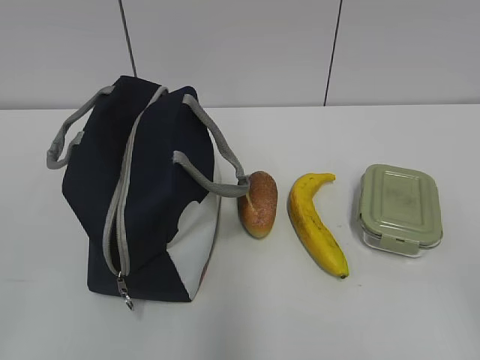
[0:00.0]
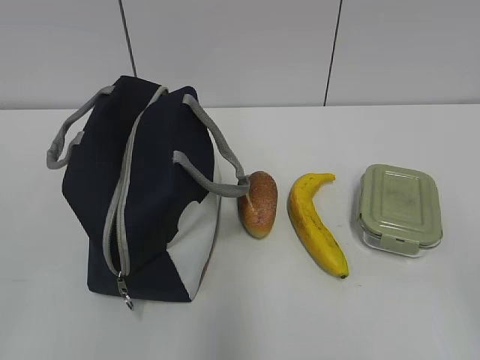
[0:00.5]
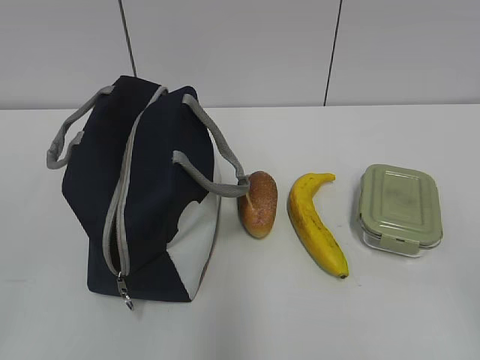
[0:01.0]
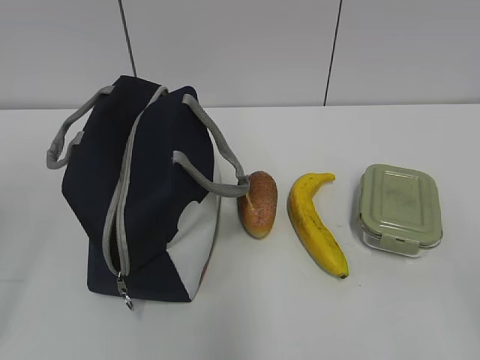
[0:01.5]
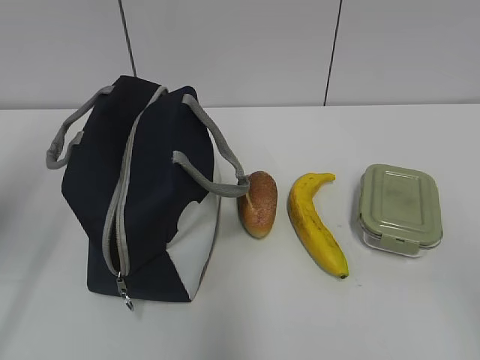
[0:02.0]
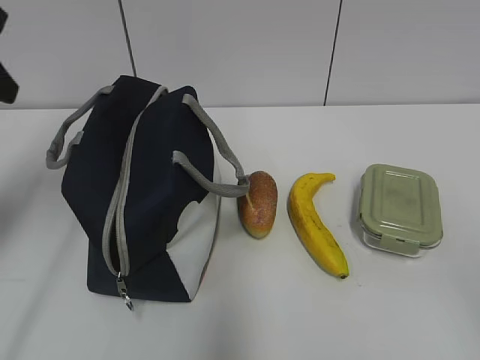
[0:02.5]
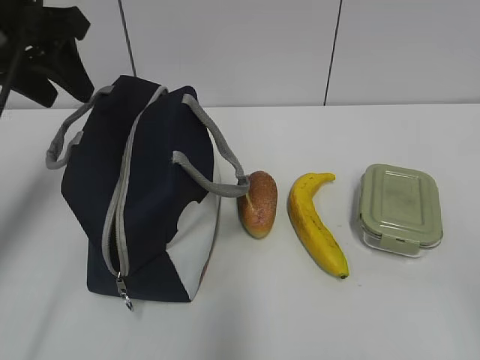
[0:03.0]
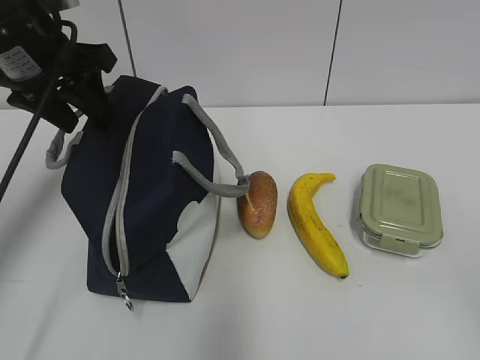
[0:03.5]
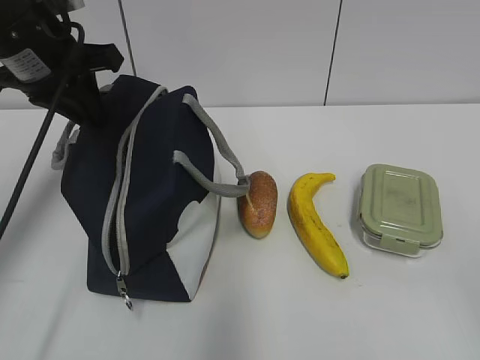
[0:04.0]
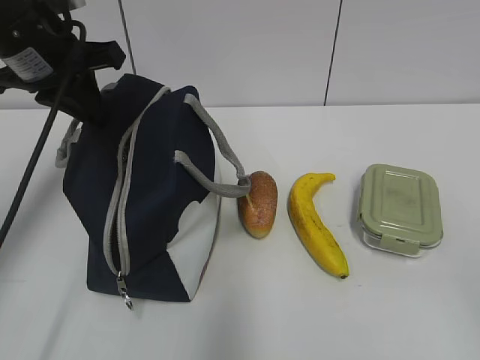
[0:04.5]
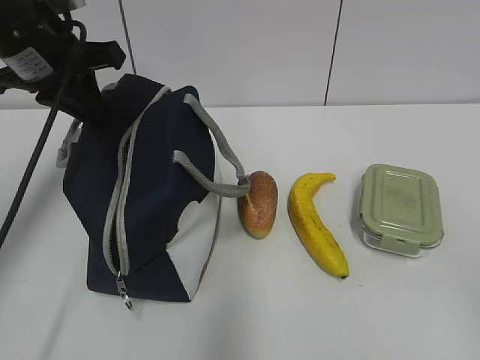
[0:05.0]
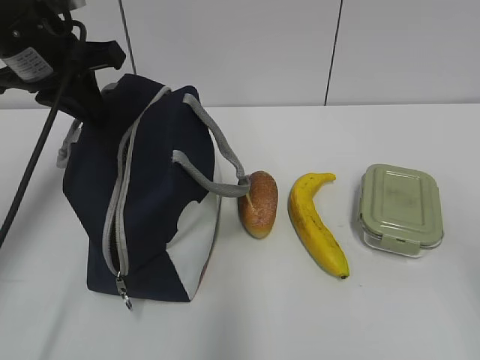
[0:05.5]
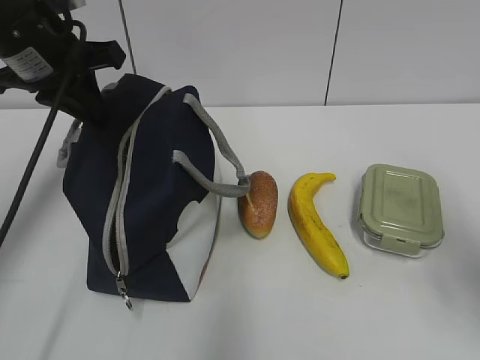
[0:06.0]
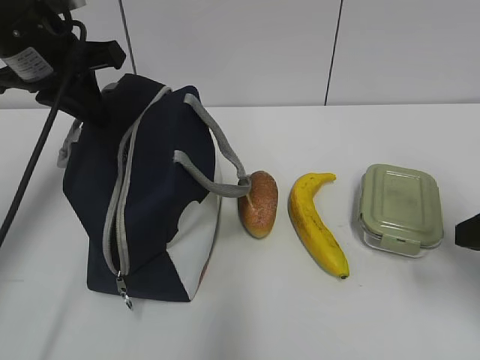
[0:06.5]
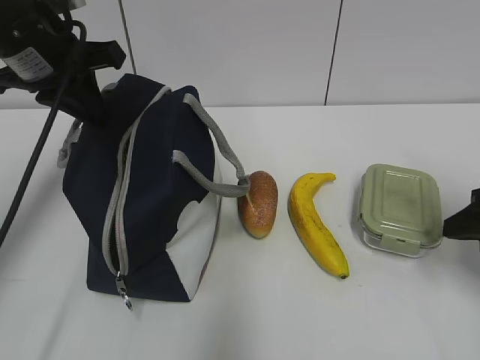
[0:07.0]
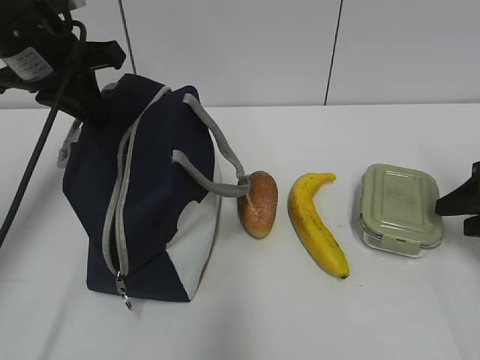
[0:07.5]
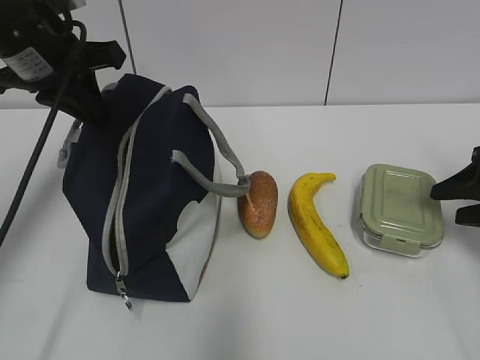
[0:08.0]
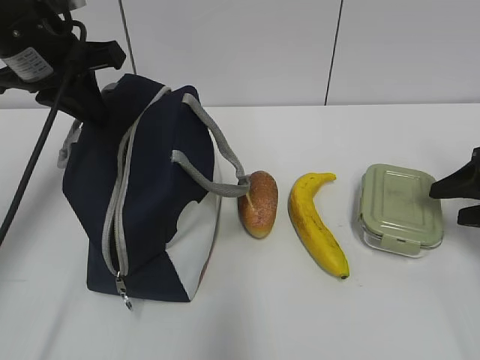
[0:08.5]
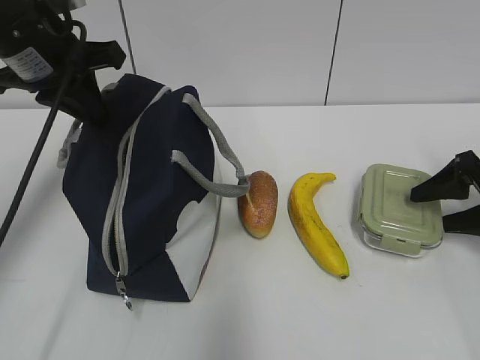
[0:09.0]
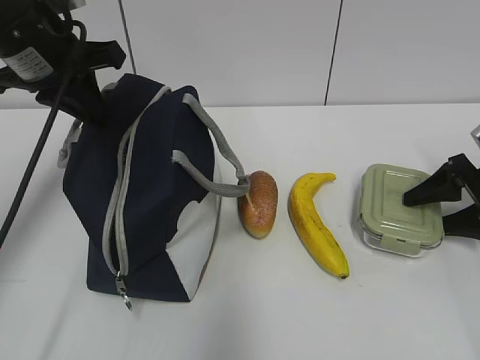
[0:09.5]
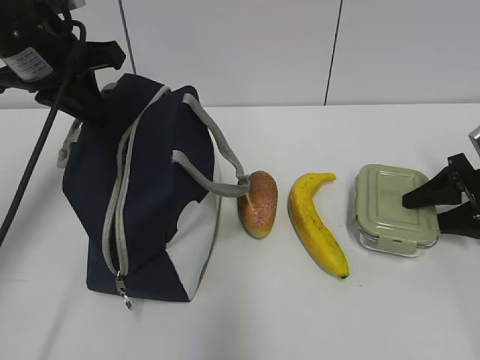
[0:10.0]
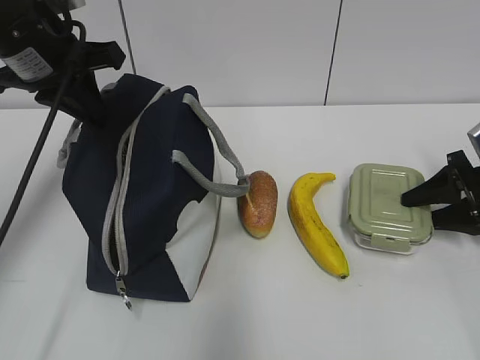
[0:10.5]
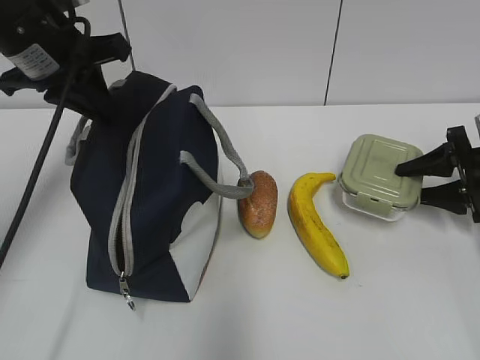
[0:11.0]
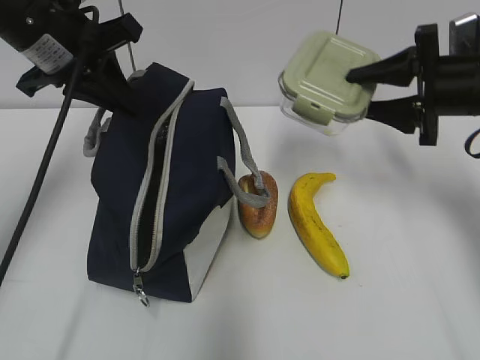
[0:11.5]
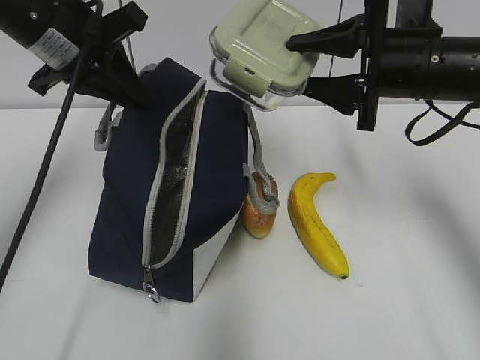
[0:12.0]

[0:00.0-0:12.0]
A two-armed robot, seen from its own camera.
Step, 0:00.0 to 0:04.5: Grab the lunch bag with your left hand.
Step, 0:05.0 to 0:10.0: Grab the lunch box with your right hand.
0:02.0 to 0:04.0: The left gripper is displaced forward and to the right by about 20 cm.
0:04.0 to 0:06.0: The right gripper goes about 15 cm forward.
0:06.0 to 0:08.0: The right gripper travels forward, downward and to the right by some 20 cm.
0:08.0 to 0:10.0: The right gripper shifts approximately 5 cm downward and forward.
0:10.0 to 0:12.0: The right gripper is displaced to the left and upward by about 20 cm.

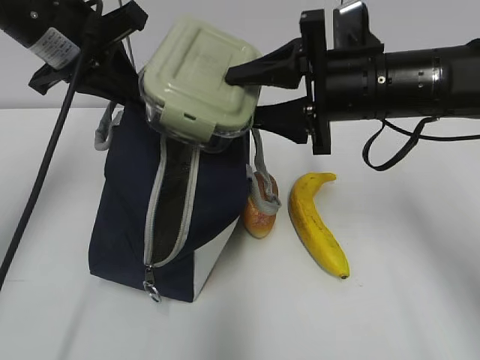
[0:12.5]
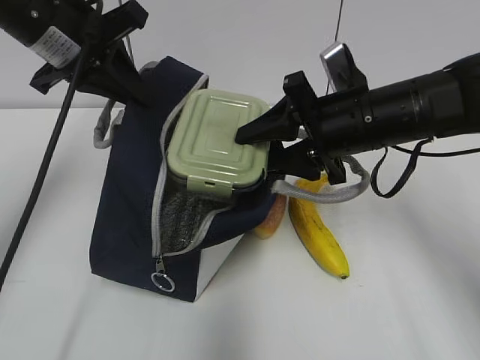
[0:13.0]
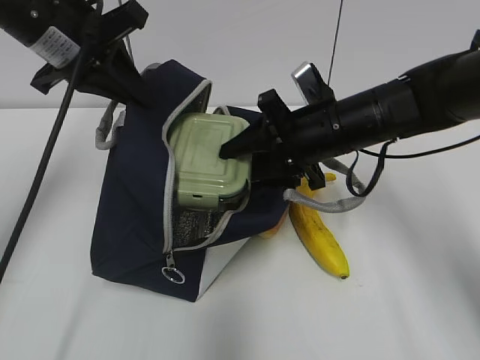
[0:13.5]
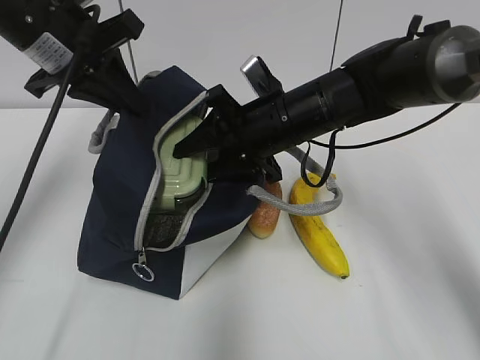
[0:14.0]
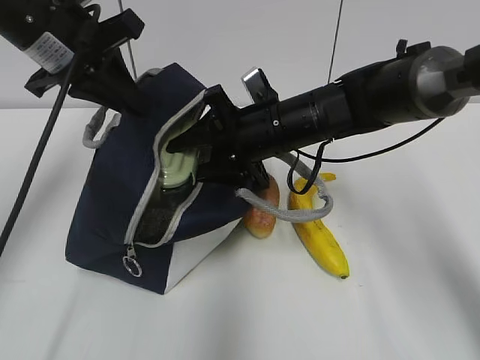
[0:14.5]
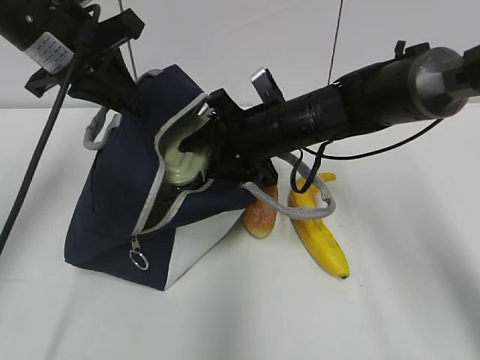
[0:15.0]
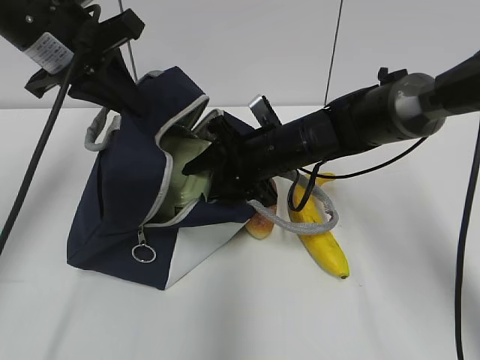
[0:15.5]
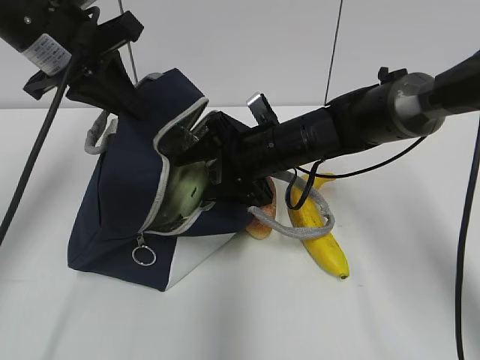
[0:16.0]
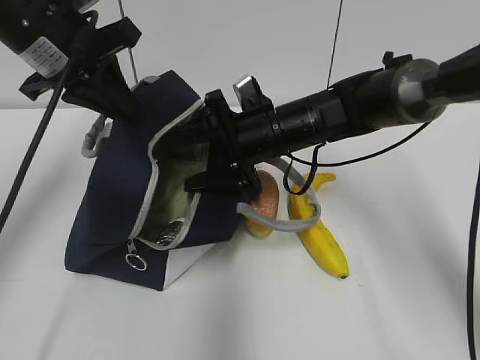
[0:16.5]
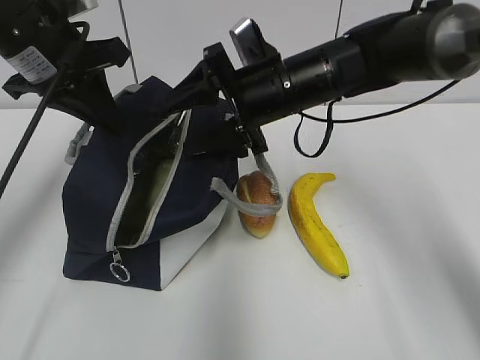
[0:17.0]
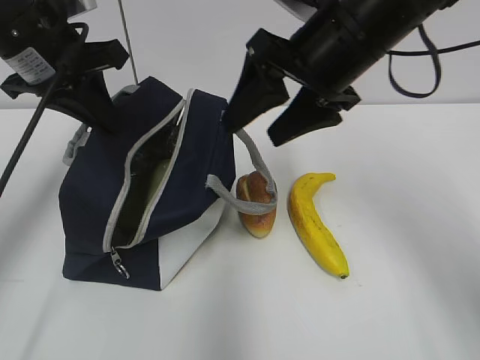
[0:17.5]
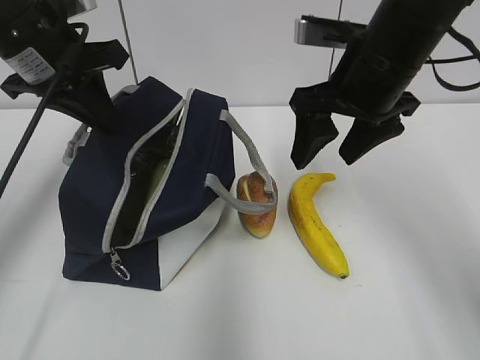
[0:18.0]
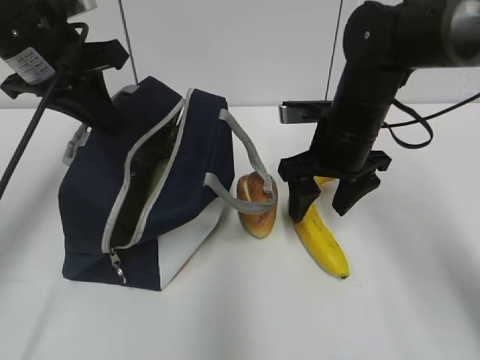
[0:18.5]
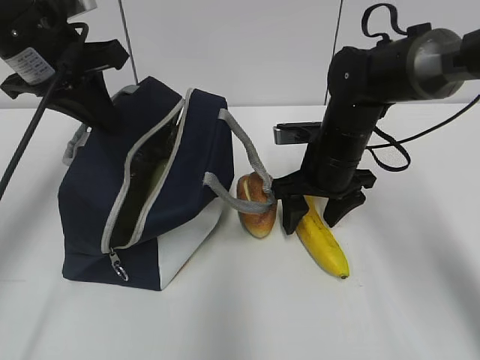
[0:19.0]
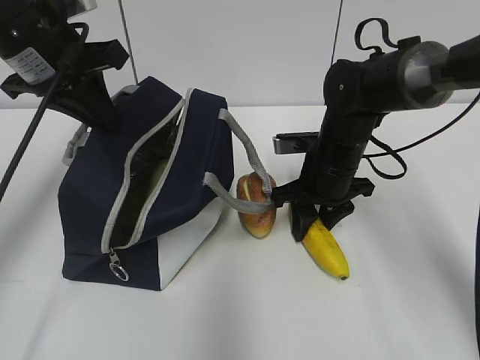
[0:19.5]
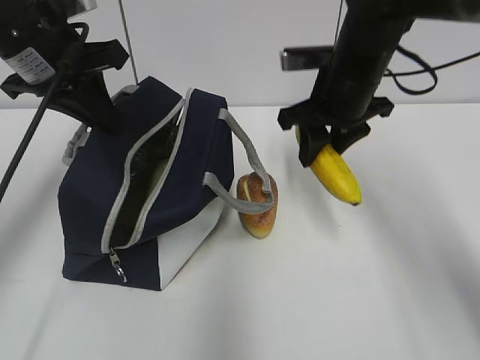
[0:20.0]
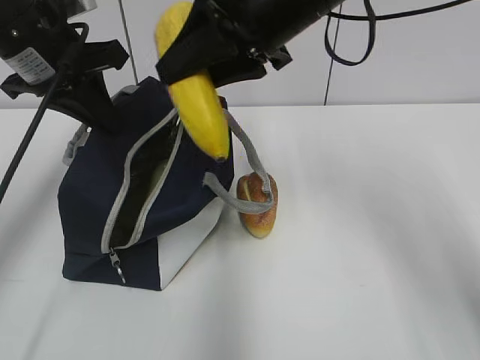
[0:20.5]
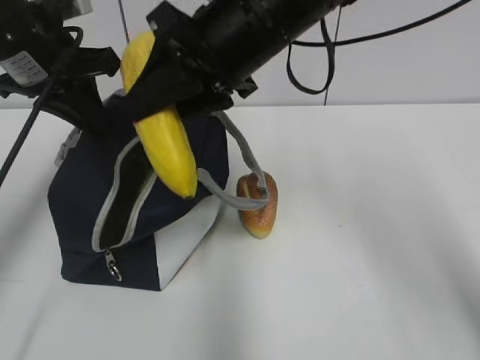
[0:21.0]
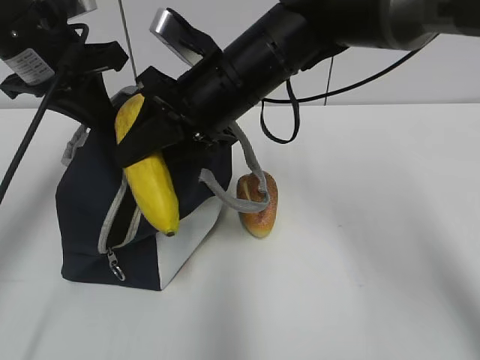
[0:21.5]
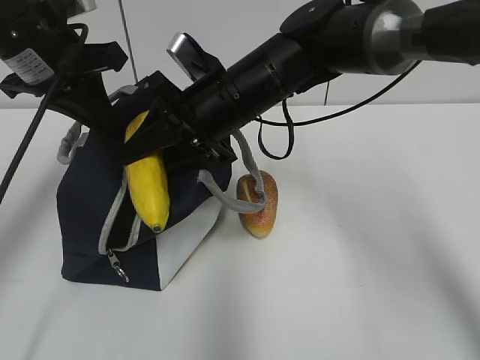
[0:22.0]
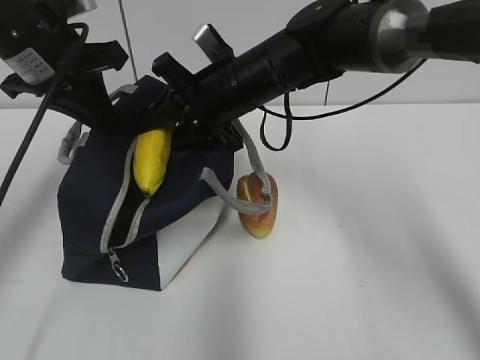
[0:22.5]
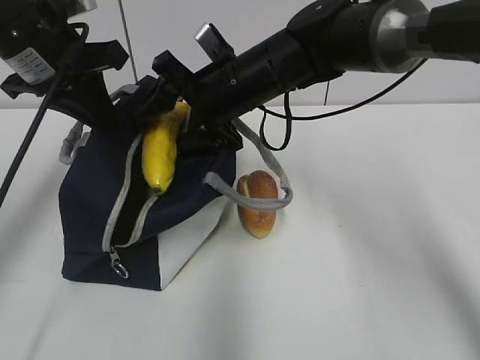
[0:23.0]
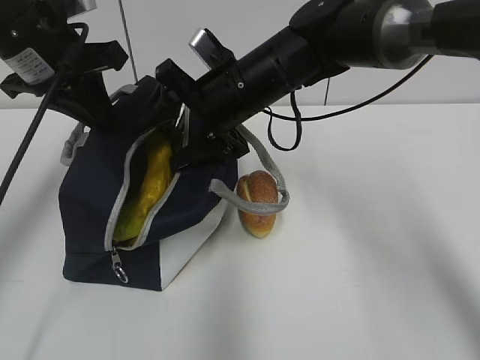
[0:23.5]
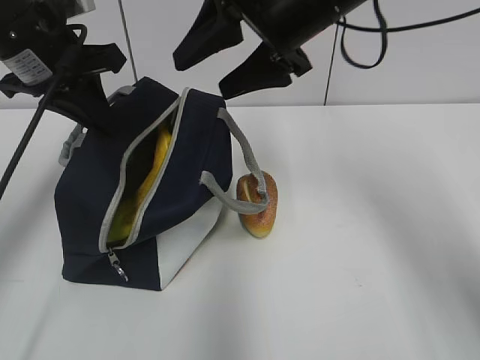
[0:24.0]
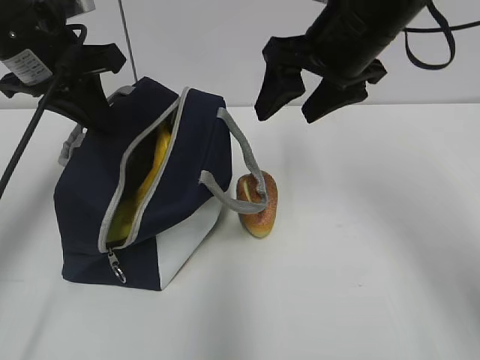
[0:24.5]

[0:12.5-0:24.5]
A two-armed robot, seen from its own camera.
Step, 0:14.0 to 0:16.0: Grab the banana with your right hand.
Step, 0:16.5 to 0:23.0: Place it into the bag with your right hand.
0:12.5 to 0:14.5: The right gripper travels downward, to the left and forward by approximately 10 cm.
0:14.5 to 0:16.5: The grippers stay close to where they were, moving slightly.
0:16.5 to 0:18.5: The right gripper shifts some 10 cm to the right, and moves approximately 15 cm upward and comes back.
0:18.5 to 0:20.5: The right gripper goes roughly 15 cm upward and to the left, and closes its fingers.
0:20.5 to 0:22.5: The right gripper travels downward and forward by roughly 10 cm.
0:22.5 to 0:24.5: The right gripper travels to the right and upward by some 15 cm, and opens.

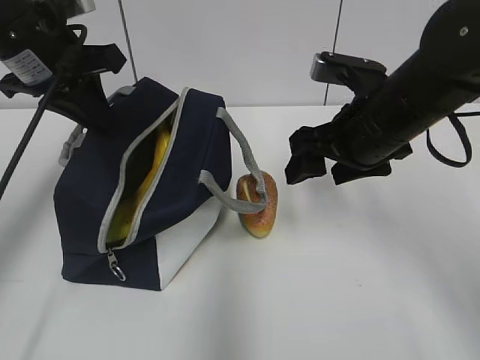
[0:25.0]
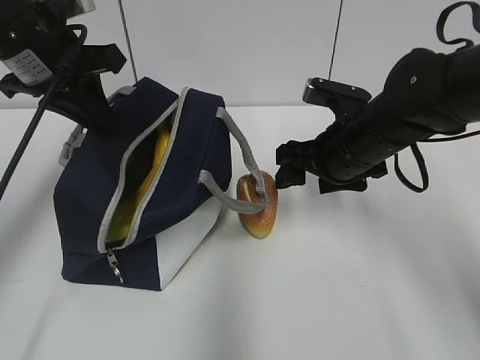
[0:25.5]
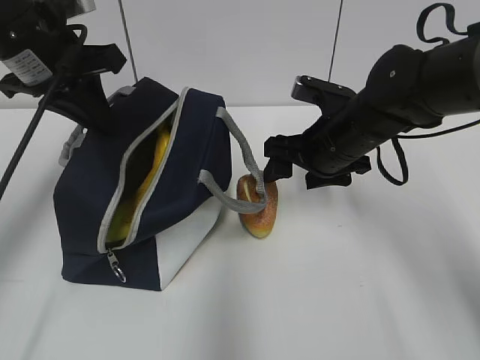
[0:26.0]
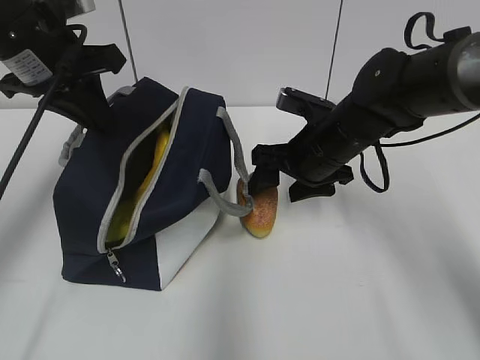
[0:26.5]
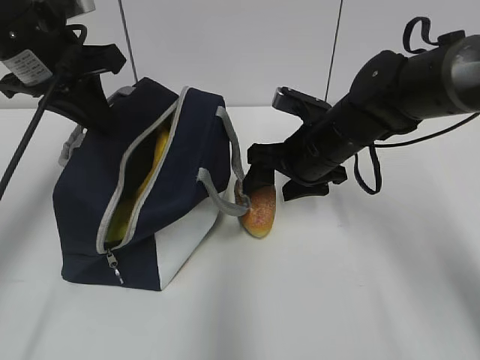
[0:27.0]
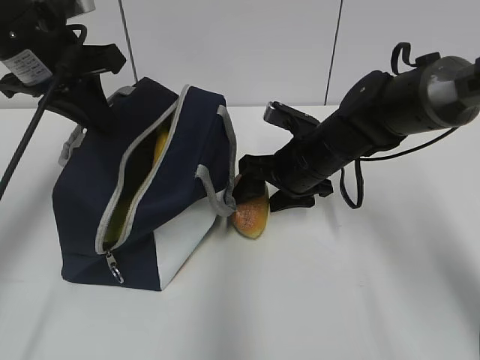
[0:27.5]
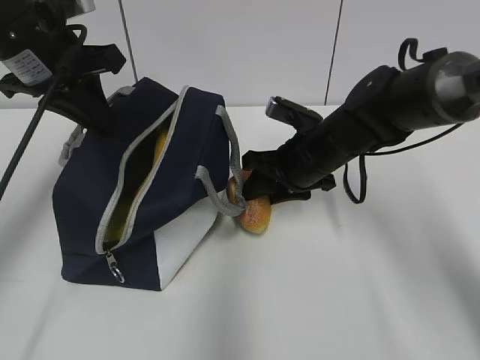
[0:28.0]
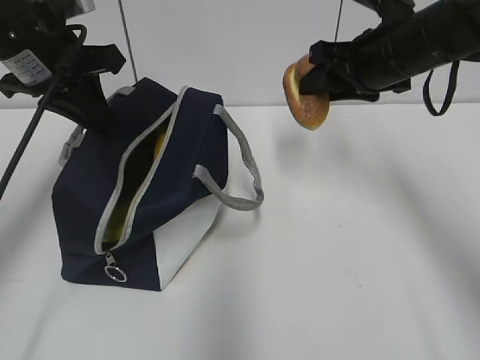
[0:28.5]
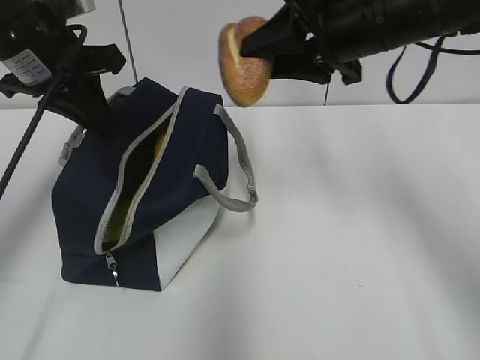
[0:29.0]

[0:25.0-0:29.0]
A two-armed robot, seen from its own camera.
Step, 0:25.0 to 0:27.5: Grab the bread with your right hand.
0:25.0 to 0:27.0: The right gripper goes roughly 10 cm downward and forward.
0:27.0 to 0:29.0: The right gripper heads upward, covering some 15 cm, and closes up.
